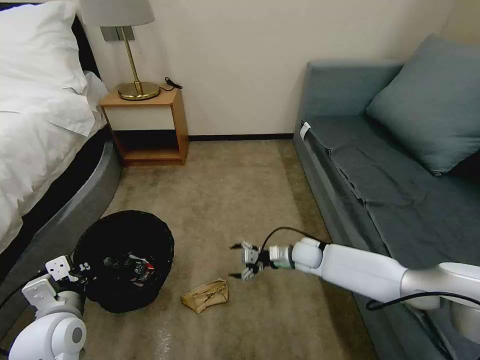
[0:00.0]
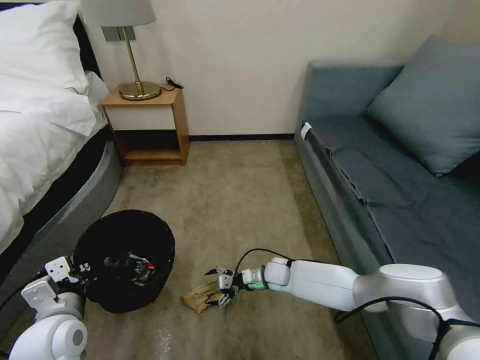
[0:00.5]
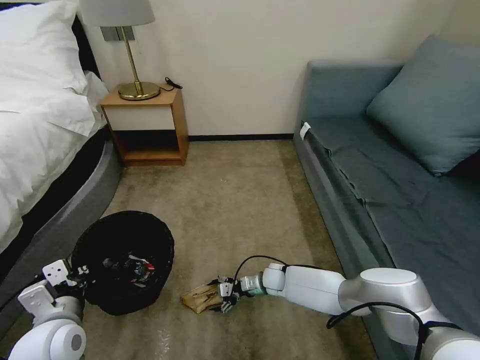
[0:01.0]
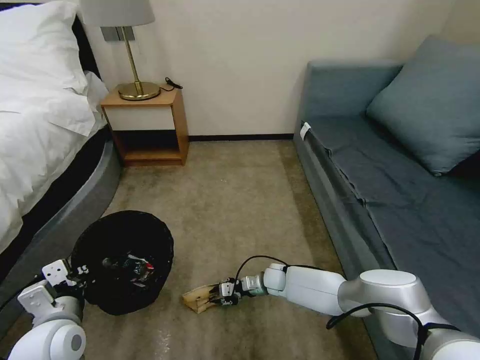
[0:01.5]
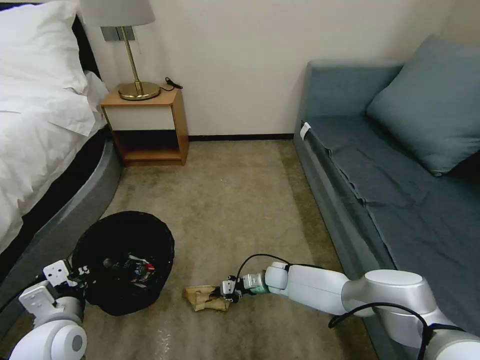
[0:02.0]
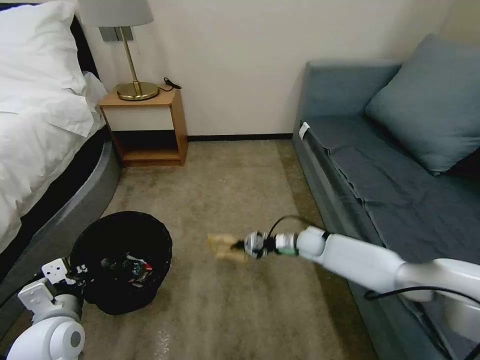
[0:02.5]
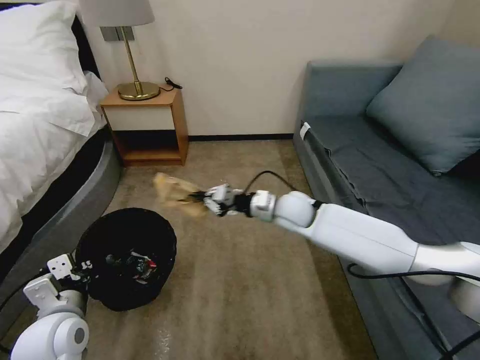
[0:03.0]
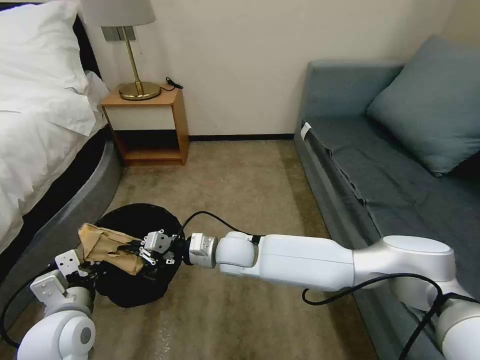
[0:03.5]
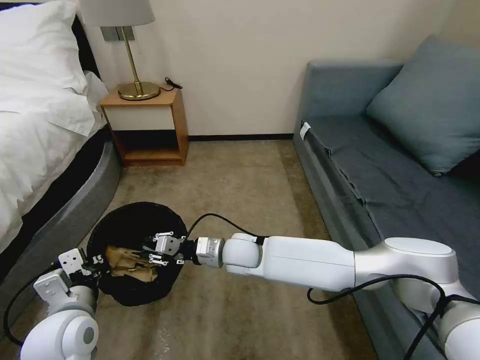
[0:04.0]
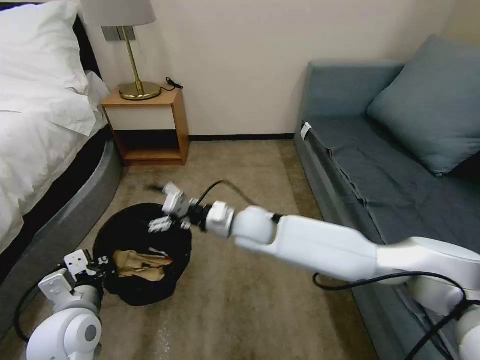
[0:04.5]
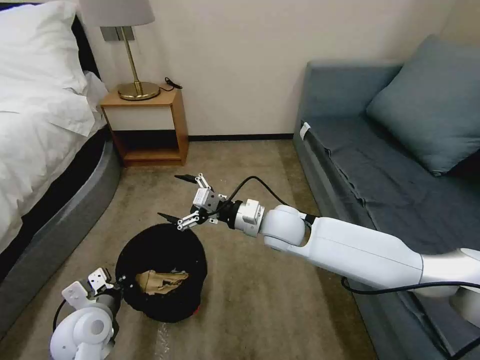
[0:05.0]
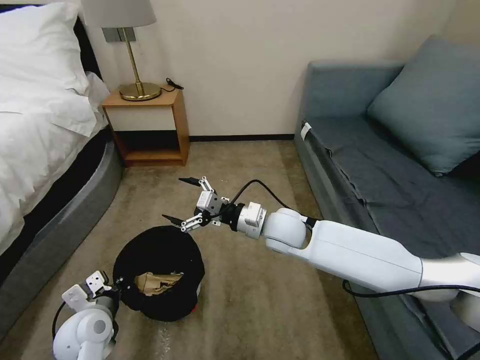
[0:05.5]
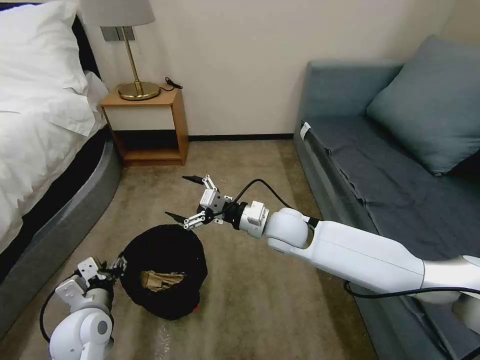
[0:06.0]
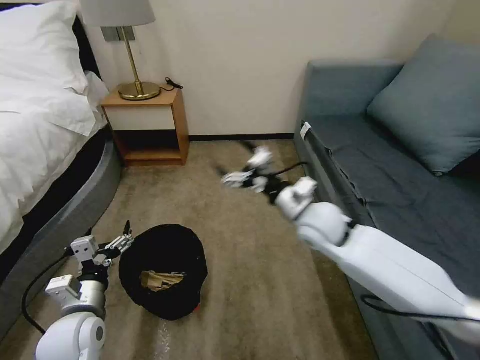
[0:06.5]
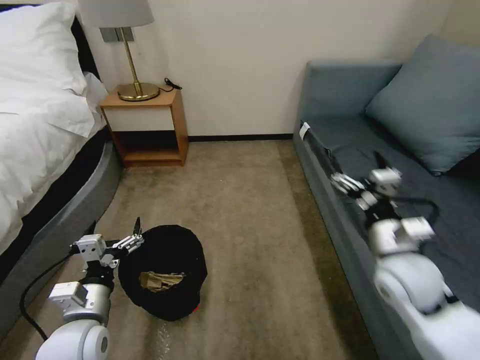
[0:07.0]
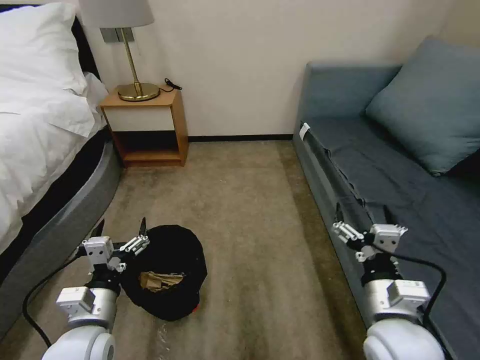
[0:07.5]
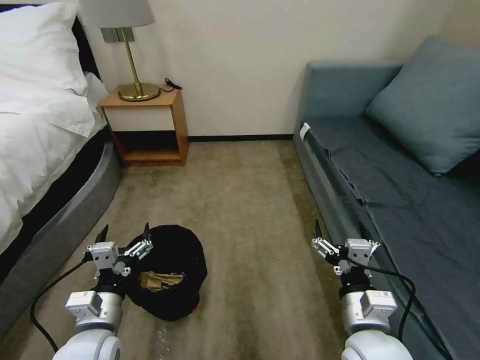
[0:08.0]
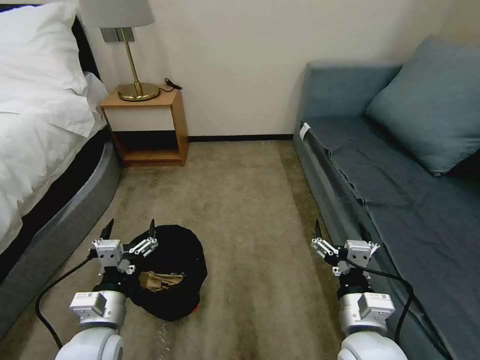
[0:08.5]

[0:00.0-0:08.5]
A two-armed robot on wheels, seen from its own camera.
Task of the whole recording: Pick up the trash bin, then pick up the garbage on the floor and place it into the trash bin.
0:00.0 to 0:02.0: The right gripper is displaced downward and to the left by roughly 10 cm, and closes its fingers.
0:02.0 to 0:04.0: The right gripper moves upward and to the left, roughly 25 cm.
0:04.0 to 0:06.5: The left gripper shifts approximately 5 cm downward, and opens, while the right gripper moves to the right and upward, some 20 cm, and opens.
0:06.5 to 0:08.5: The left gripper goes approximately 5 cm to the right; the right gripper travels backward by about 25 cm.

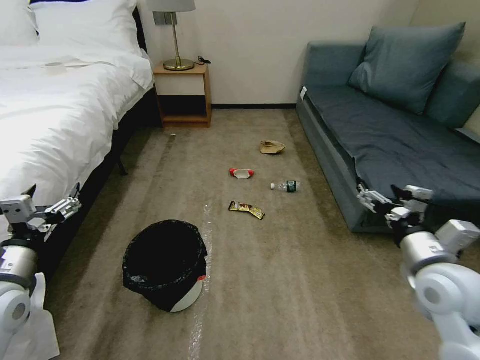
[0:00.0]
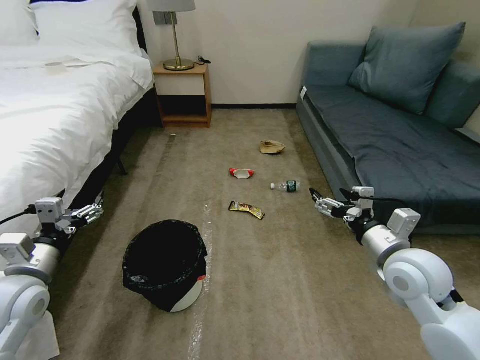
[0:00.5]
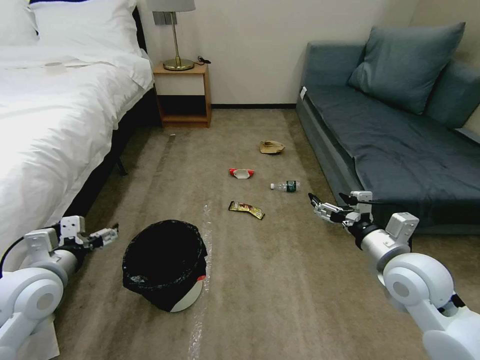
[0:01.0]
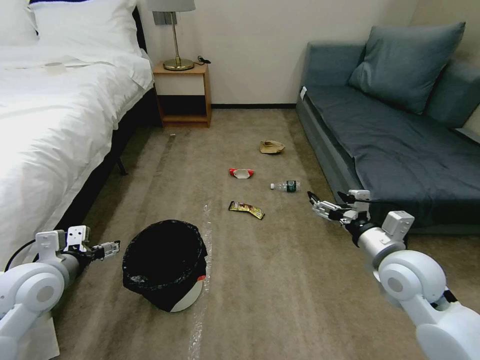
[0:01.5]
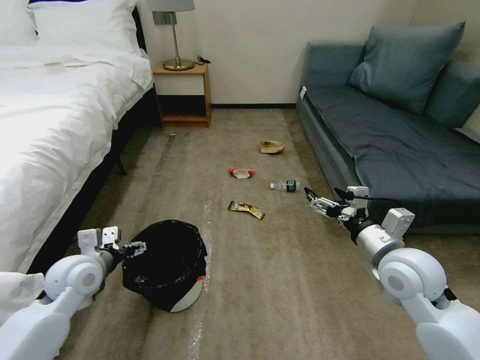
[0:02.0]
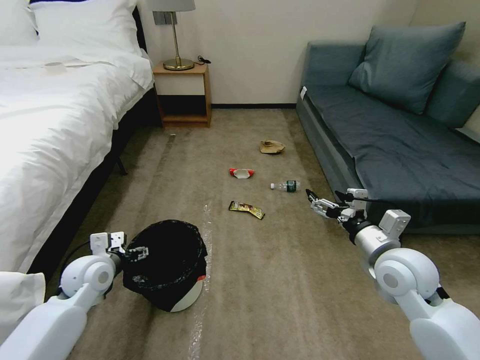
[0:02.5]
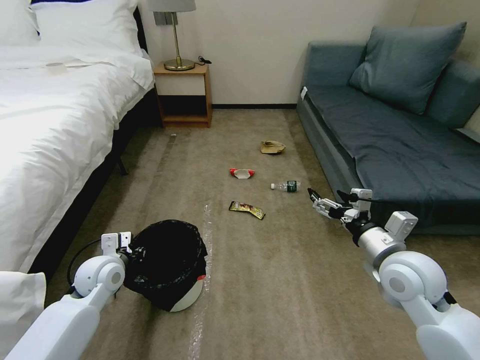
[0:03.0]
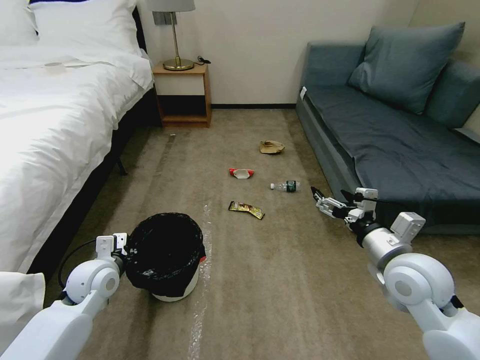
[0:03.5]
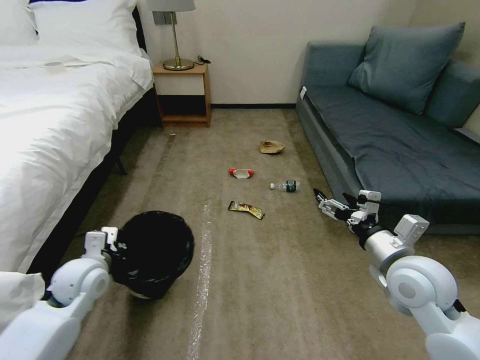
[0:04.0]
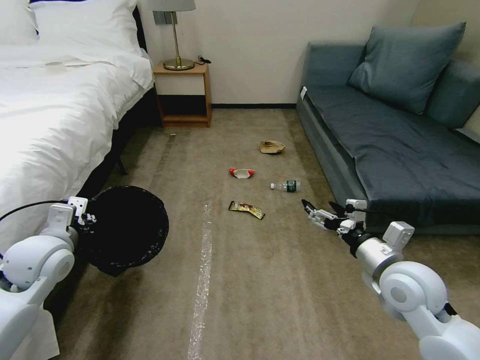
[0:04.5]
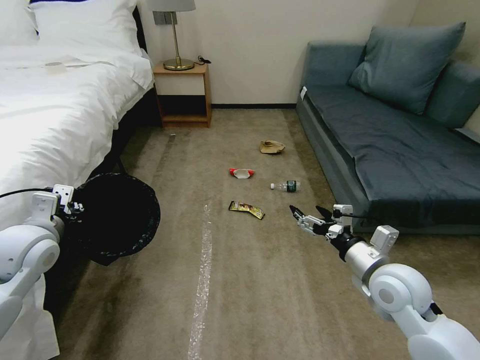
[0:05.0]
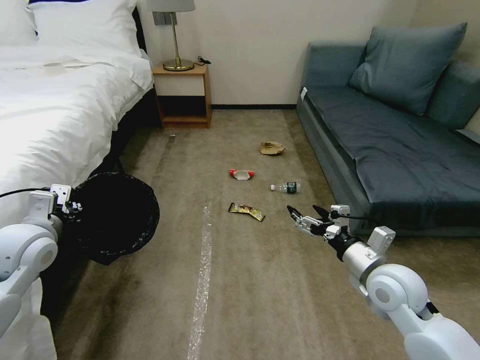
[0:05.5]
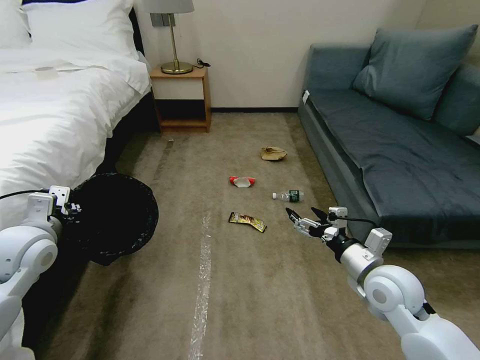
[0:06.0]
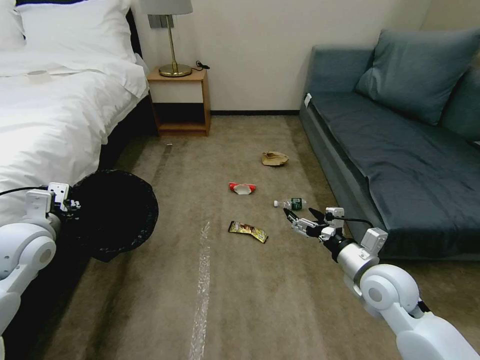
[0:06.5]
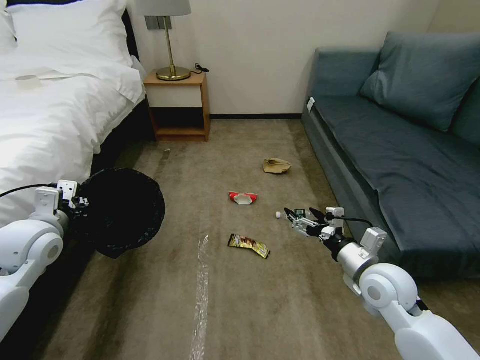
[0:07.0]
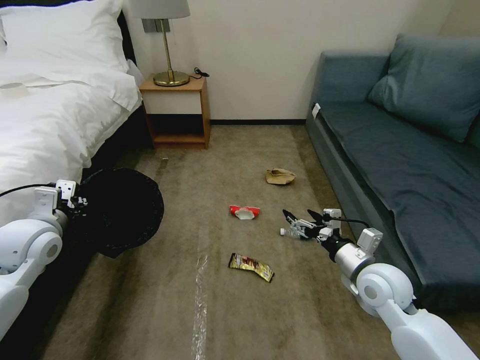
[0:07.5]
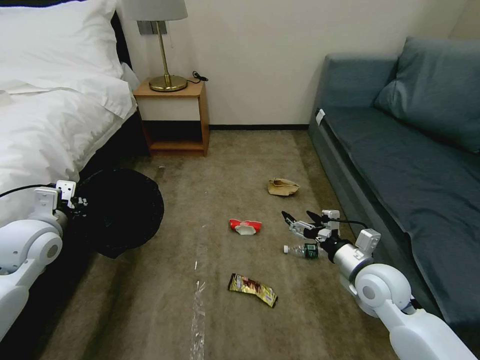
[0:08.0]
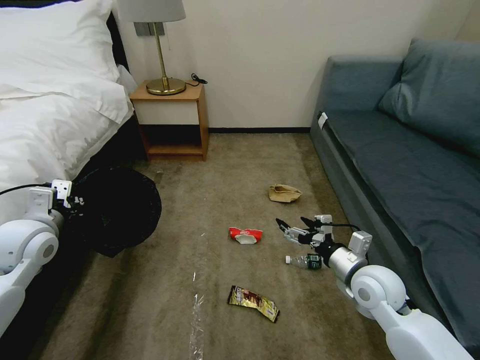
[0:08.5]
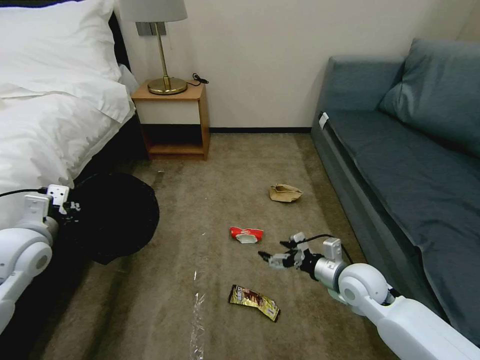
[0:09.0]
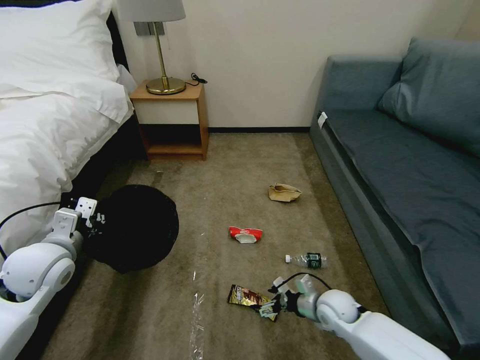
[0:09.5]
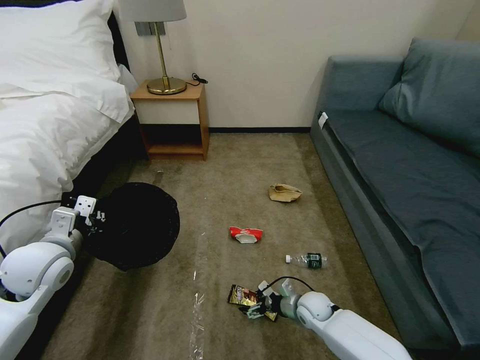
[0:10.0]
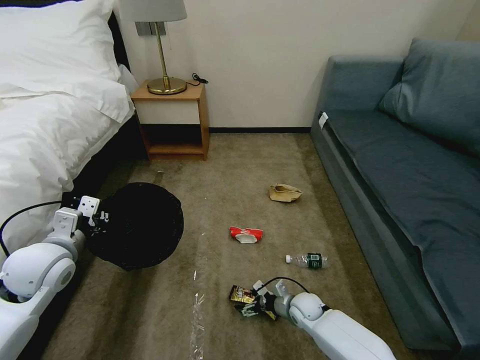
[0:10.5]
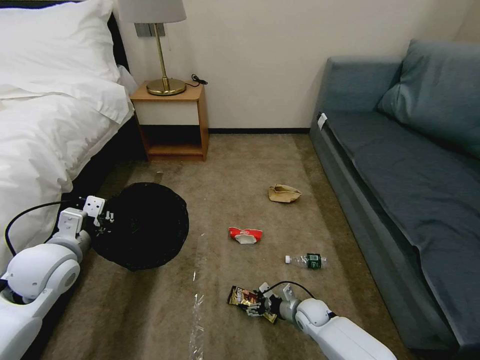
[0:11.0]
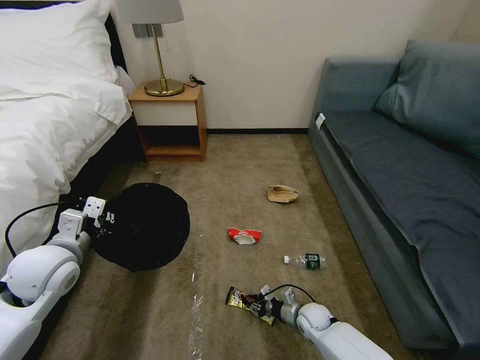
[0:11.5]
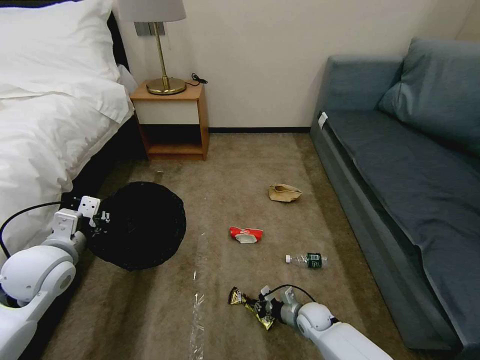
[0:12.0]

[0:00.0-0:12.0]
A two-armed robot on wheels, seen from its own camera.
Task of the whole recording: Pick up the trash bin, then pick up the garbage on the floor and place it into the trash bin.
0:02.0 to 0:04.0: The left gripper closes its fingers.
0:04.0 to 0:06.0: The left gripper is displaced upward and to the left by some 15 cm. The right gripper goes some 5 cm downward.
0:08.0 to 0:10.0: The left gripper shifts by about 5 cm, while the right gripper moves downward, approximately 25 cm.
0:10.0 to 0:12.0: The right gripper closes.

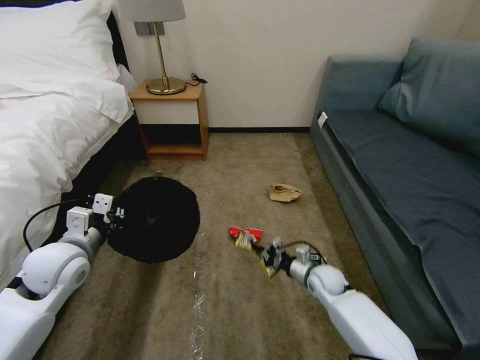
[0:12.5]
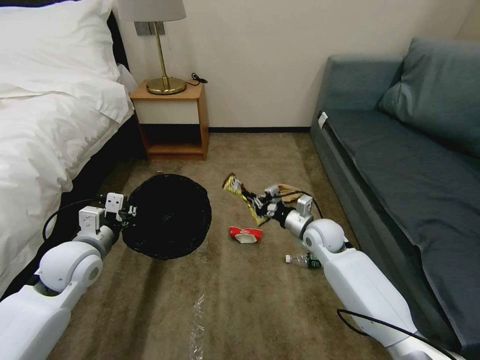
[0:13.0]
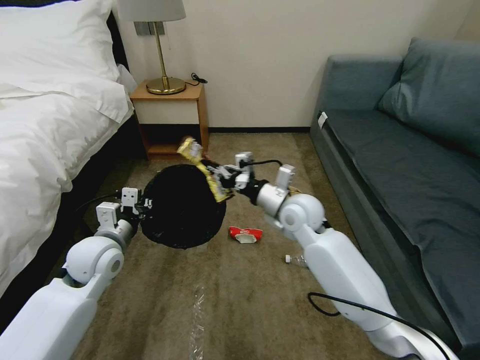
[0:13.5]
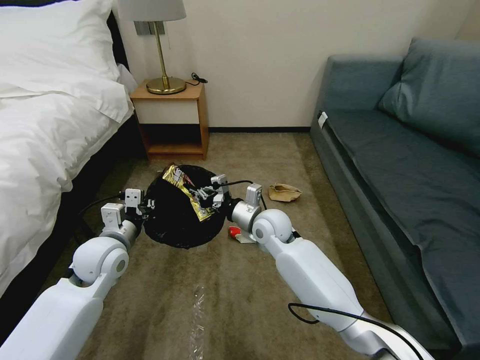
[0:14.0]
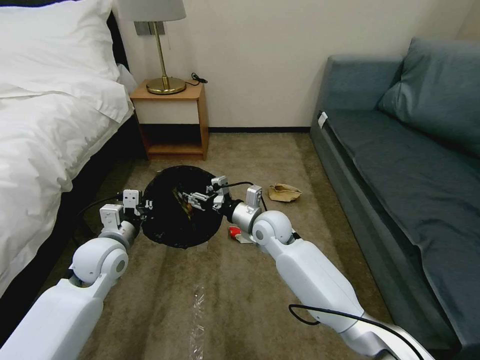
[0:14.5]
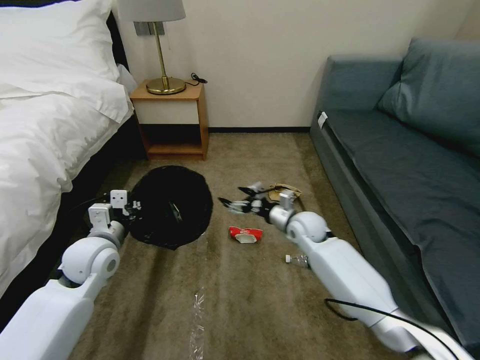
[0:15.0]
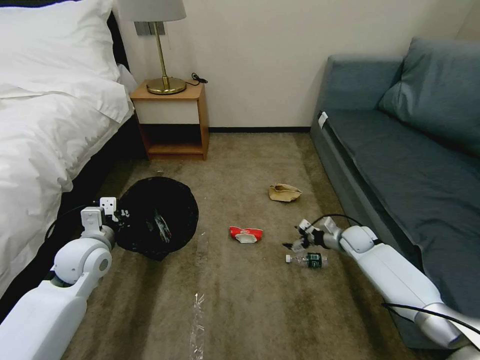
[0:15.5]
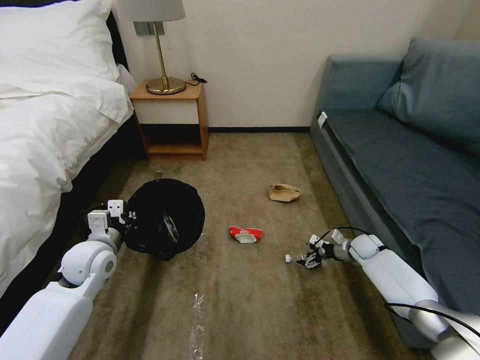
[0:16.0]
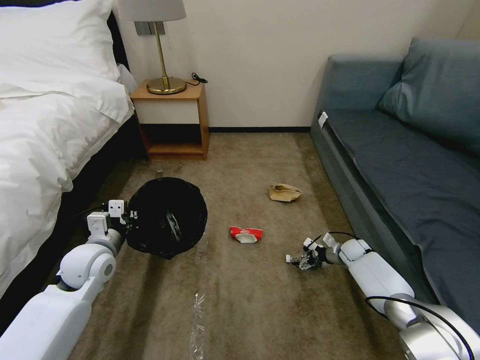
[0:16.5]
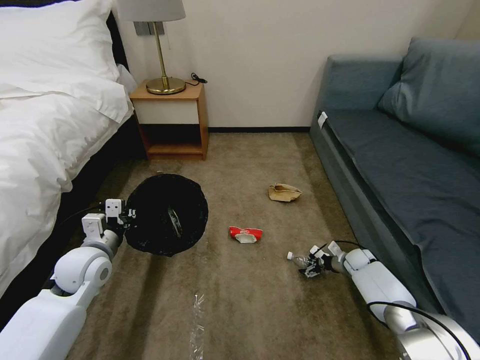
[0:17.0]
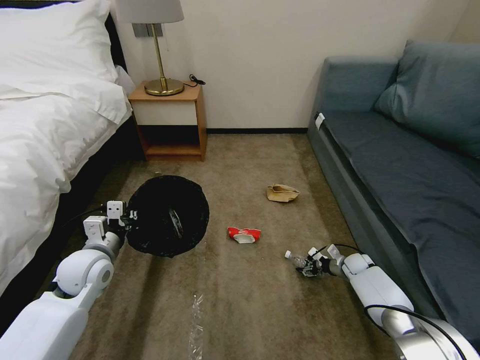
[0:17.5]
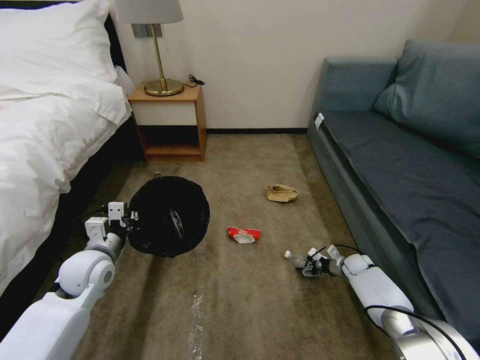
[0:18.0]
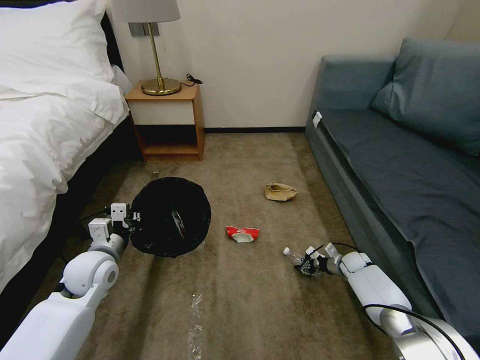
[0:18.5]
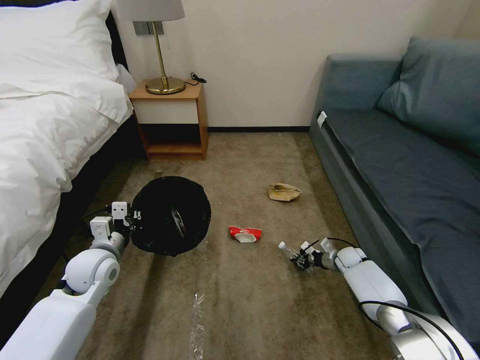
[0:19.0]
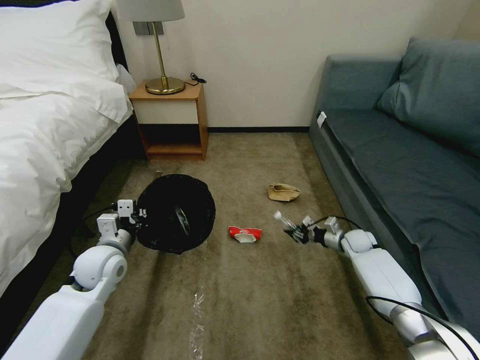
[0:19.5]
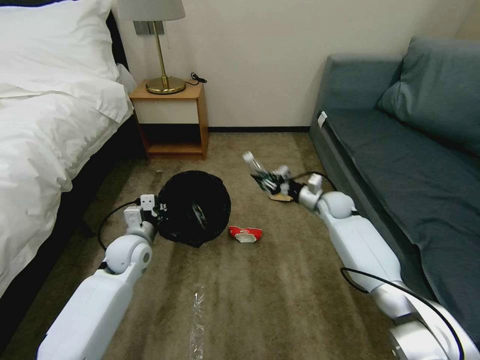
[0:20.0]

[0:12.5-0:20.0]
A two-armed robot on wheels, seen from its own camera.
Task of the whole recording: Pick up the trash bin, then pick up the garbage on the floor and place it into the trash bin.
0:12.5 to 0:14.5: The left gripper is displaced to the right by roughly 5 cm; the right gripper goes about 25 cm upward and to the left, and opens up.
0:14.5 to 0:16.5: The right gripper travels to the right and downward by roughly 40 cm, and opens.
0:16.5 to 0:18.0: The right gripper shifts by about 5 cm, and closes its fingers.
0:18.0 to 0:20.0: The right gripper travels upward, to the left and forward by approximately 25 cm, and closes up. Meanwhile the left gripper heads forward and to the right, covering roughly 10 cm.
